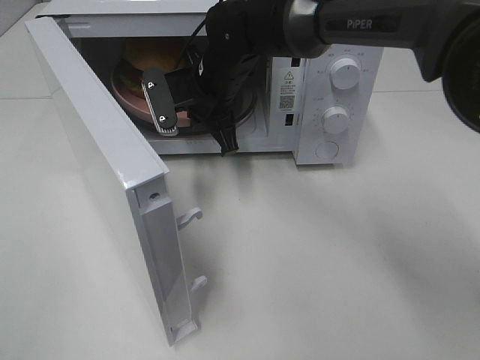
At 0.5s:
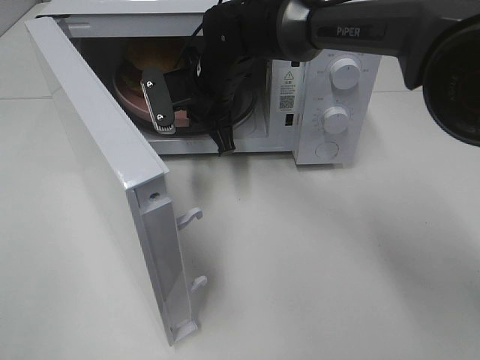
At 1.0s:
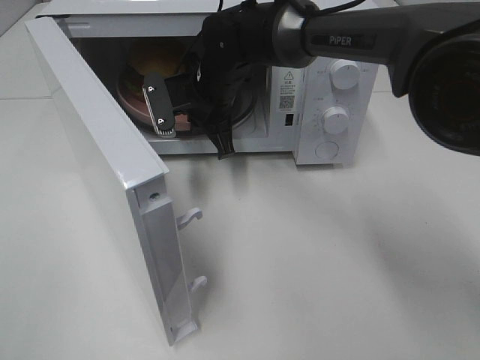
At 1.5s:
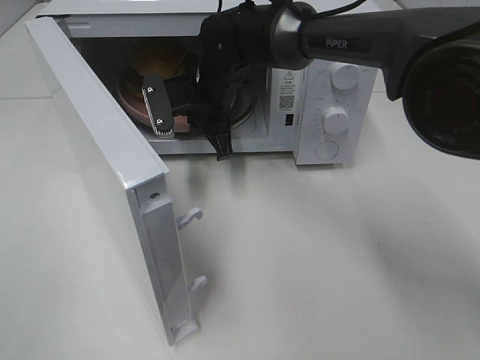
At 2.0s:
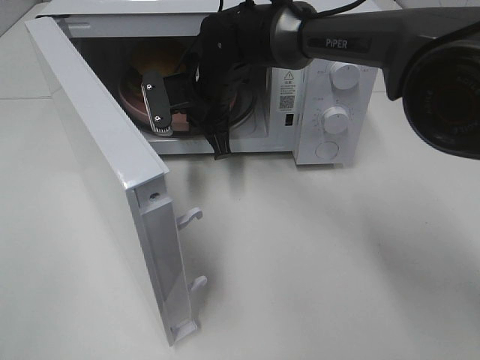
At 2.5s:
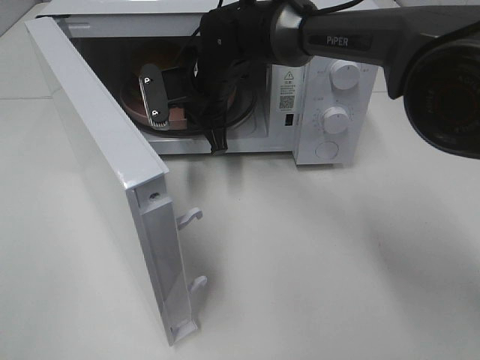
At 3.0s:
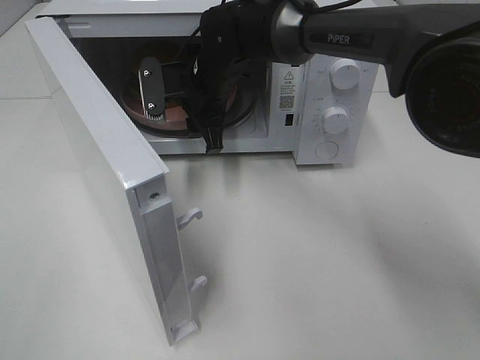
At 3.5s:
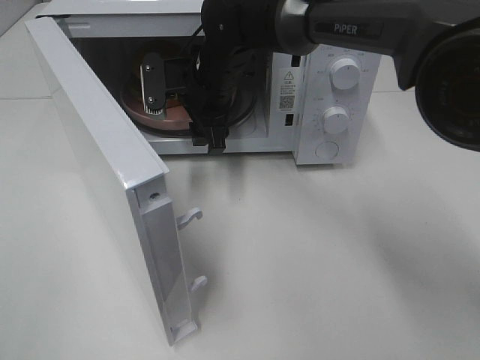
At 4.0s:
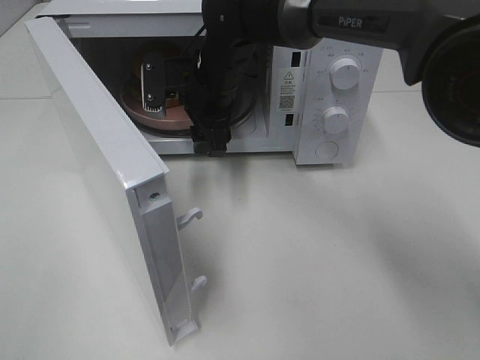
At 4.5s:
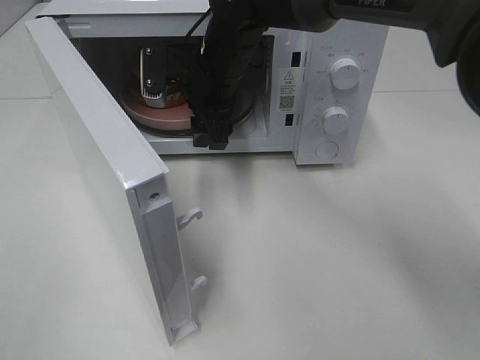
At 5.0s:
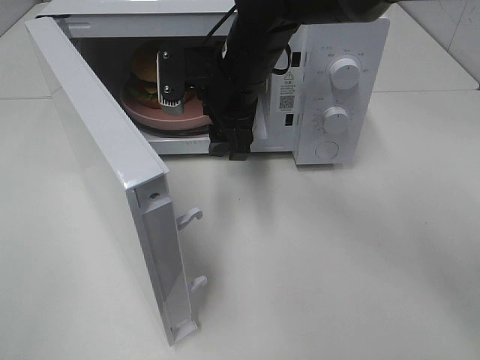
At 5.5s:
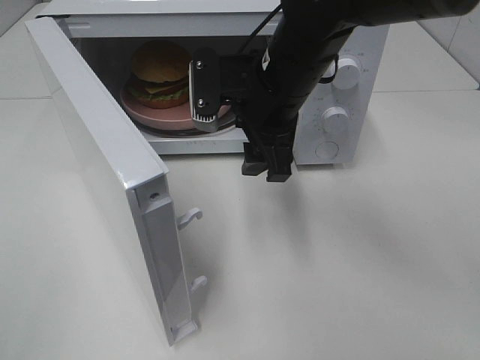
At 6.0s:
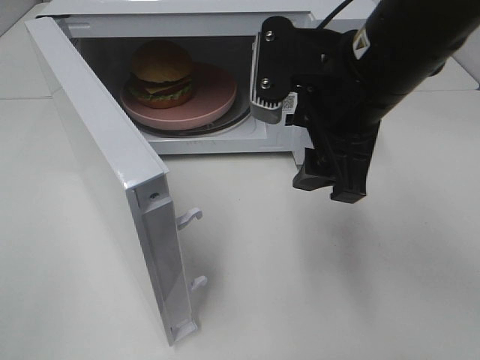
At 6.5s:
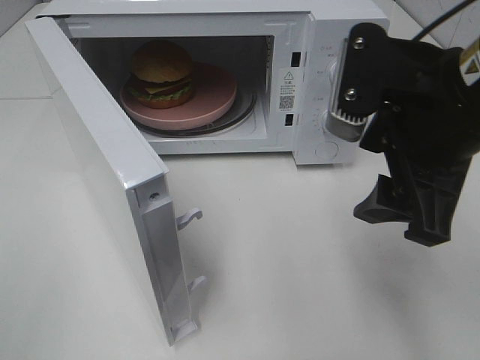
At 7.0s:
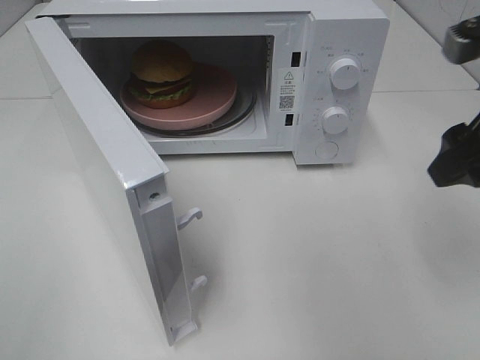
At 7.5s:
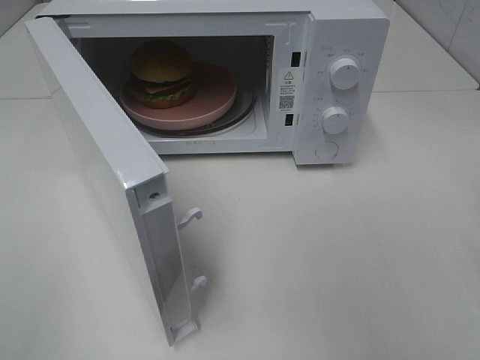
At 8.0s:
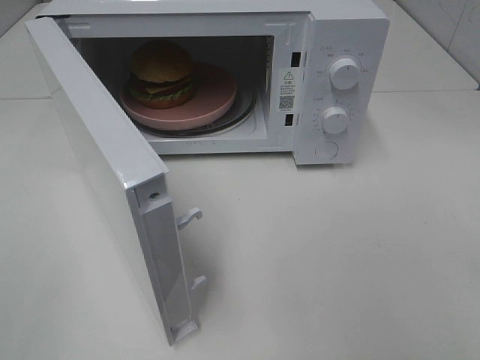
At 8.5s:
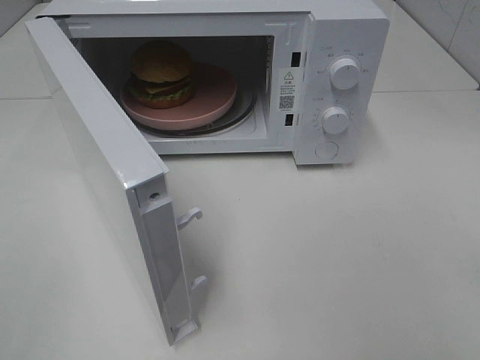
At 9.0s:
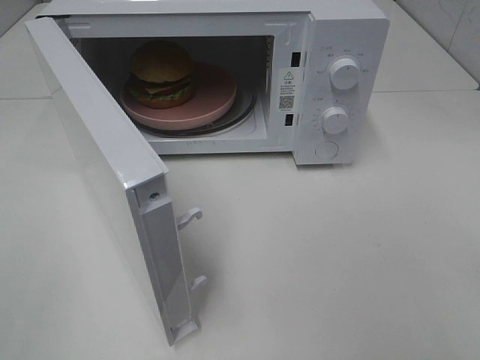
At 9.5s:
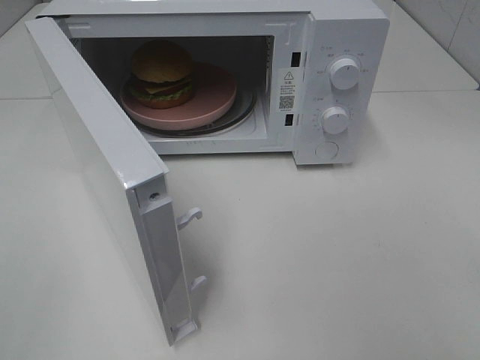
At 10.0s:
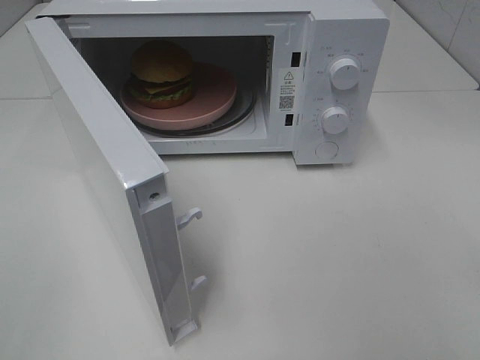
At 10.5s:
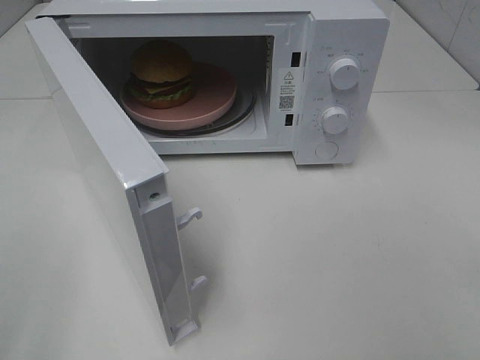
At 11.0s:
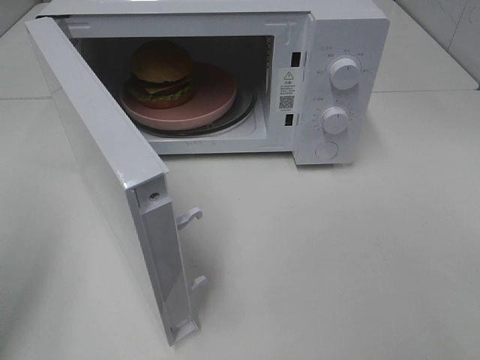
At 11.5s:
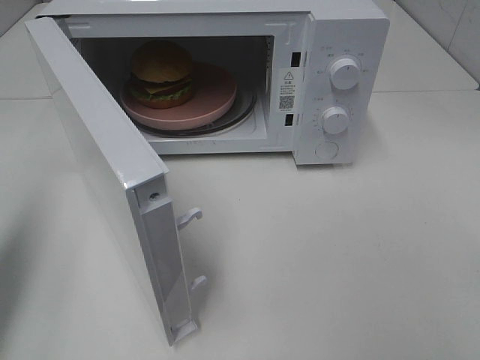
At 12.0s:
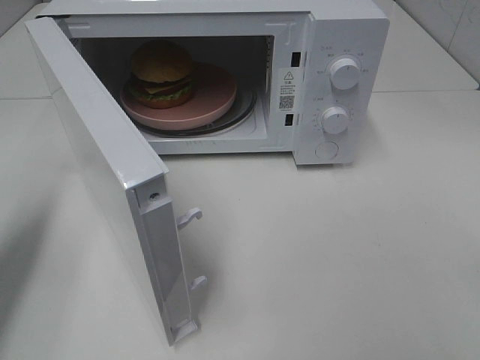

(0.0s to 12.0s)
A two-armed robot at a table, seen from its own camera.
Task of the whole recording: Heat the burger.
Step, 0.0s - 2.5s: Right hand: place the plate in the microwave.
0.0s - 2.0s: The grippers move only a little.
2.0s - 4.0s: The right gripper opens.
4.0s - 6.0s: The right gripper travels backward, to the right and upward by approximately 25 cm.
6.0s - 8.0s: The right gripper shifts about 25 cm backward and to the right.
10.0s - 12.0s: The left gripper travels forward by roughly 20 cm, and closes.

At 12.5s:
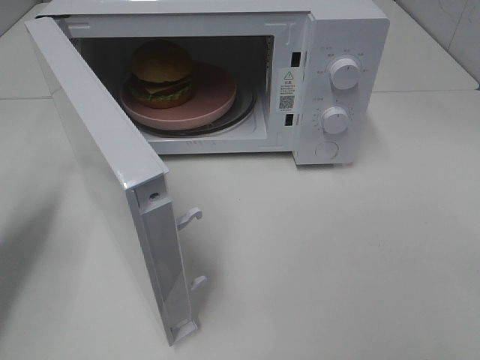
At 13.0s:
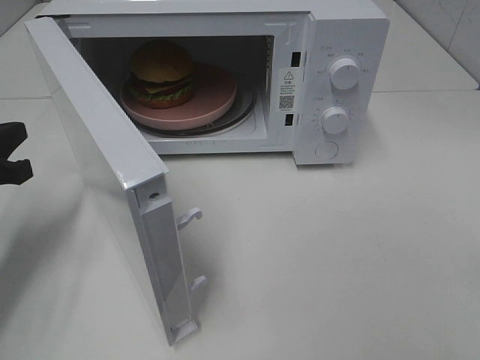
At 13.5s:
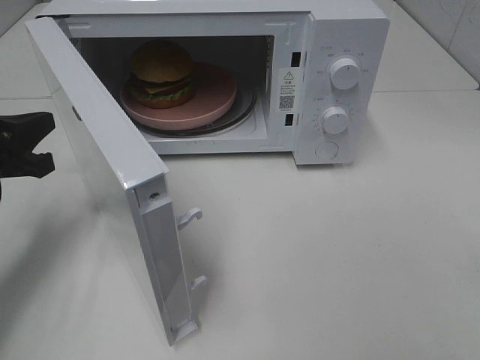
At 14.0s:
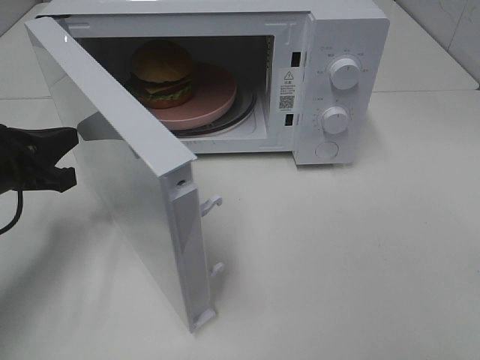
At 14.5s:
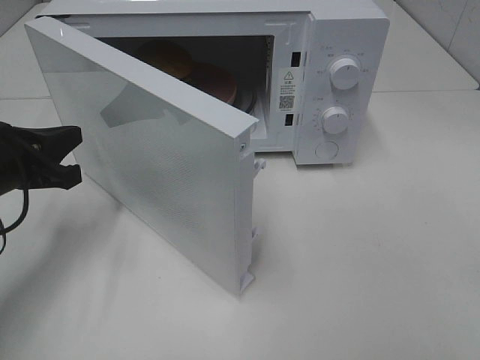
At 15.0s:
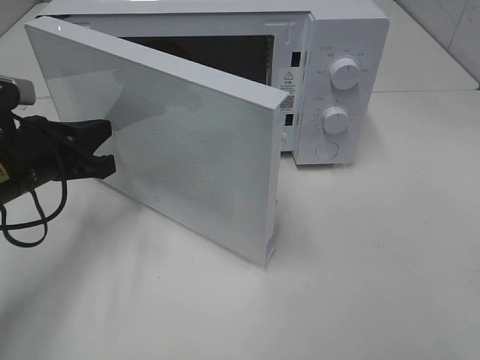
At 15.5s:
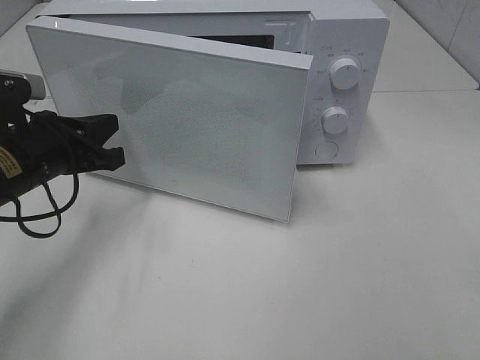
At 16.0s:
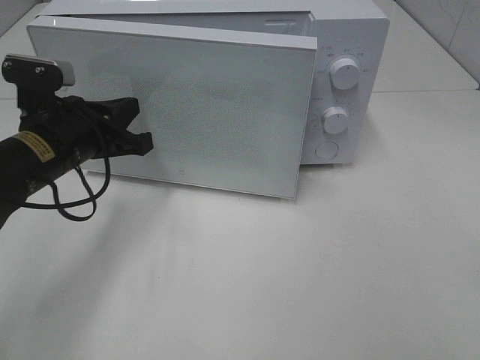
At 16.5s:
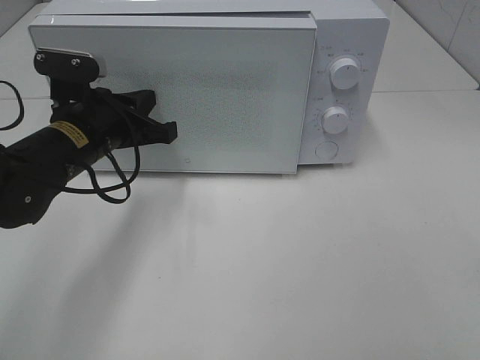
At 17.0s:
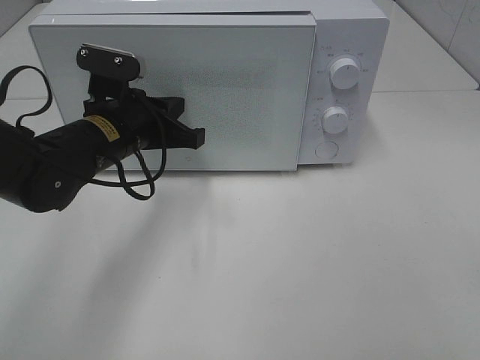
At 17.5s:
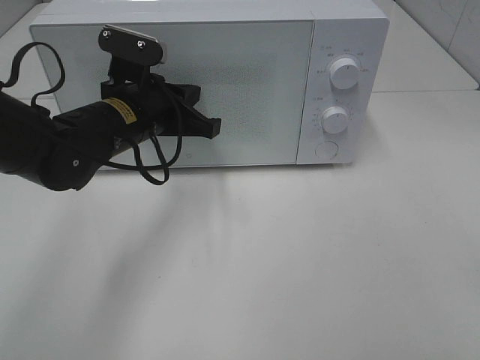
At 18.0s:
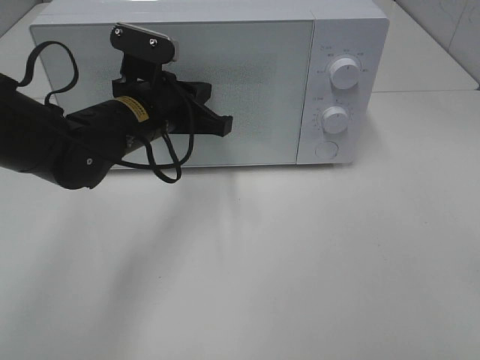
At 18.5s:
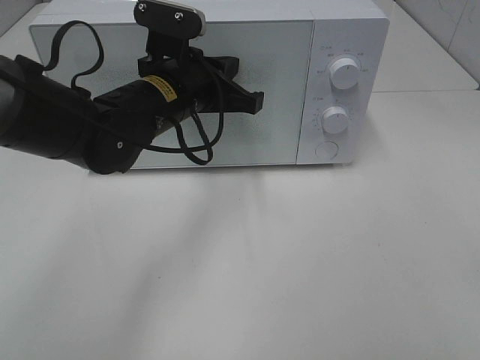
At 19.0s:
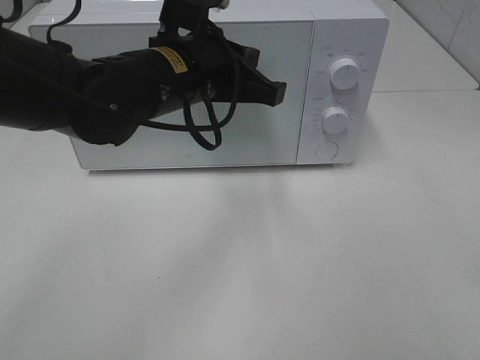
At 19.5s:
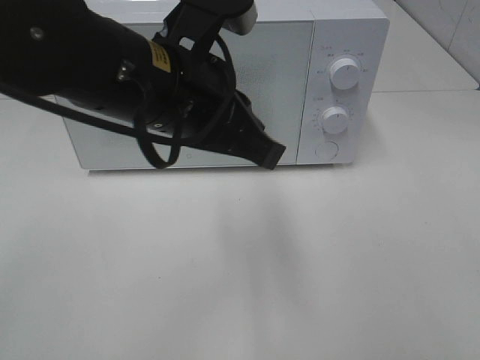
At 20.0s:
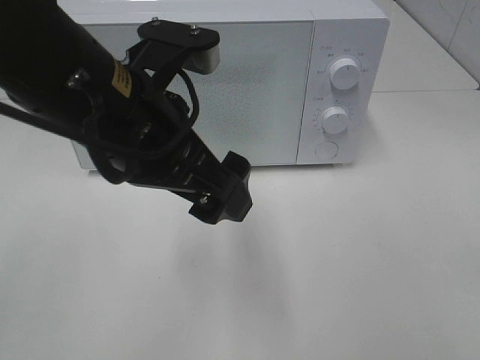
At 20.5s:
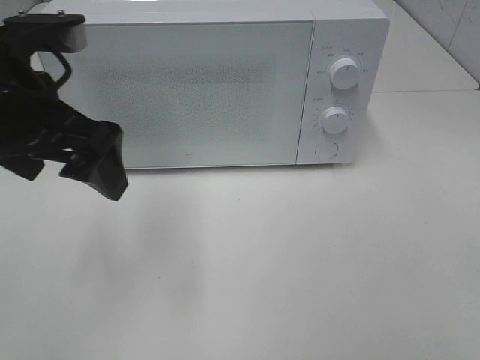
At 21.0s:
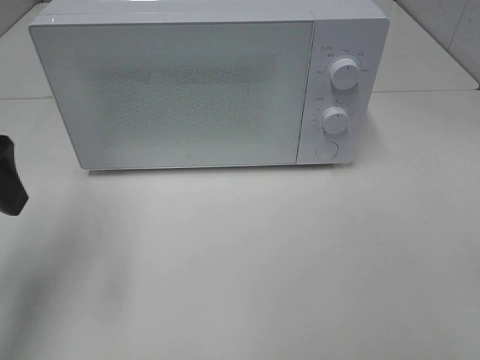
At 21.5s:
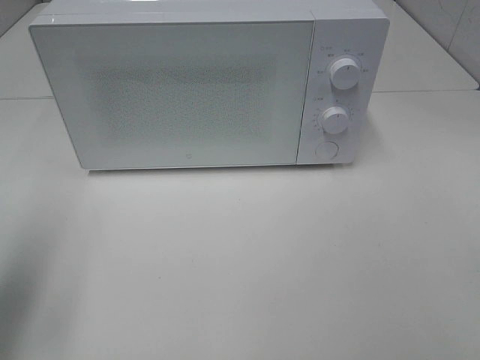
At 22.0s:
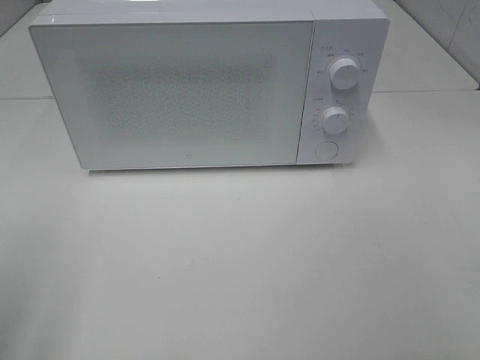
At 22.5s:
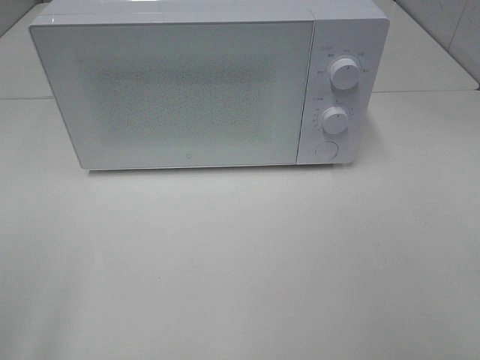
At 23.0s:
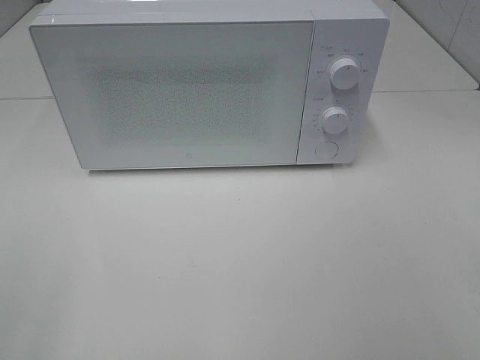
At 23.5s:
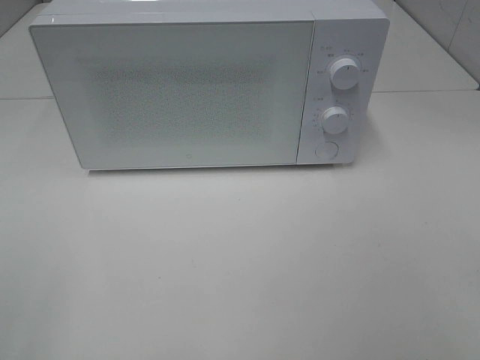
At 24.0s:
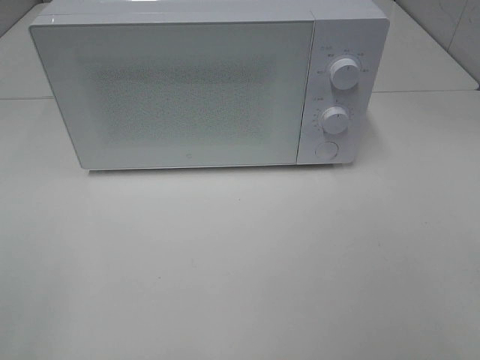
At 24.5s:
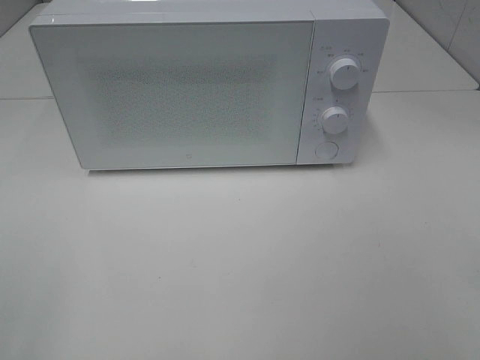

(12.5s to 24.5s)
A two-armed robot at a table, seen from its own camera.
Task of the whole recording: Heat the burger.
Step, 12.5s - 18.0s: Left hand: close the microwave door.
12.5s - 14.5s: The left gripper moves to the right, some 5 cm.
14.5s - 16.5s: The left gripper shifts about 10 cm to the right and forward.
16.5s - 18.5s: The left gripper shifts some 10 cm to the right.
18.5s - 20.5s: The left gripper heads to the left, backward and upward, covering roughly 15 cm, and opens.
20.5s - 22.5s: The left gripper travels backward and to the left by approximately 25 cm.

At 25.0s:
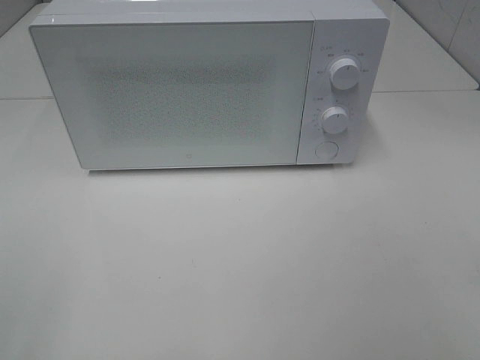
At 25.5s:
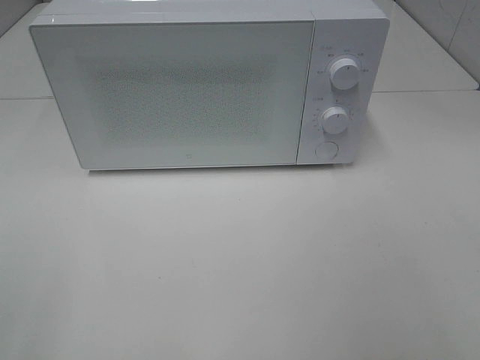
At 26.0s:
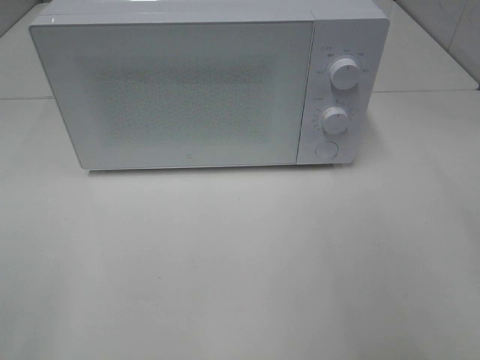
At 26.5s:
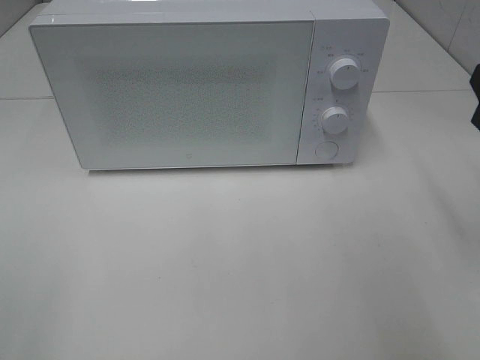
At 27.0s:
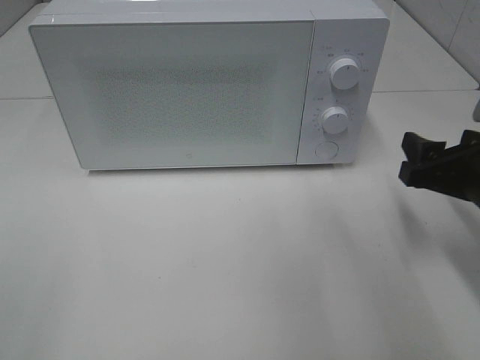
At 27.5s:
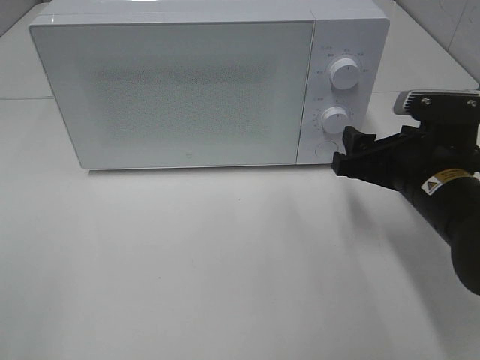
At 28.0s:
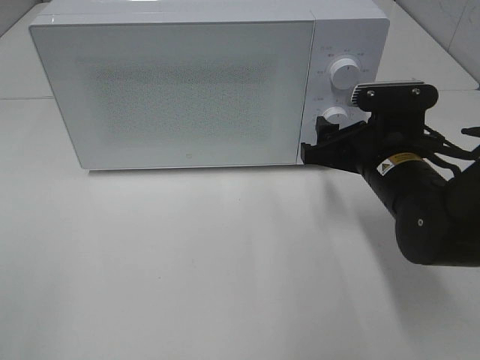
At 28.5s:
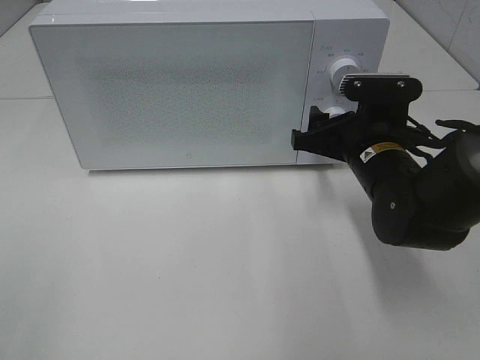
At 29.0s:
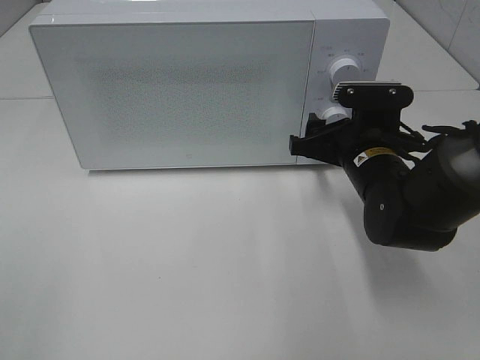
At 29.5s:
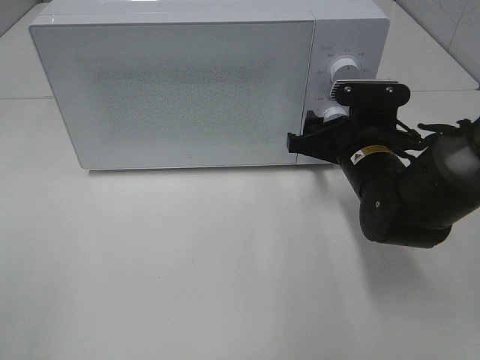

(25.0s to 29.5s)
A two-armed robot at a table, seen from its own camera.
Task of the whole recording: Heat the burger.
25.0s - 27.0s: The right gripper is displaced forward and downward by roughly 25 cm.
27.0s - 29.5s: The right gripper travels to the left and forward by some 15 cm.
